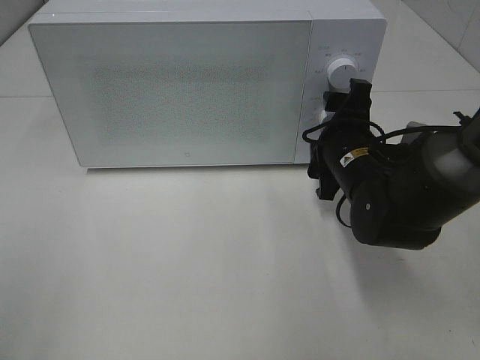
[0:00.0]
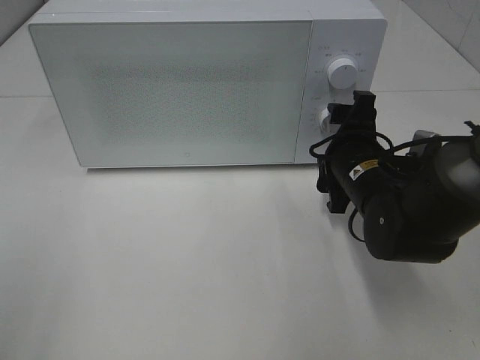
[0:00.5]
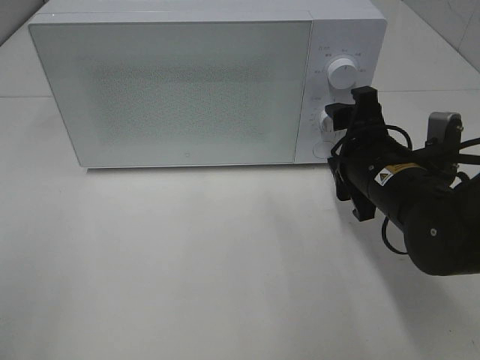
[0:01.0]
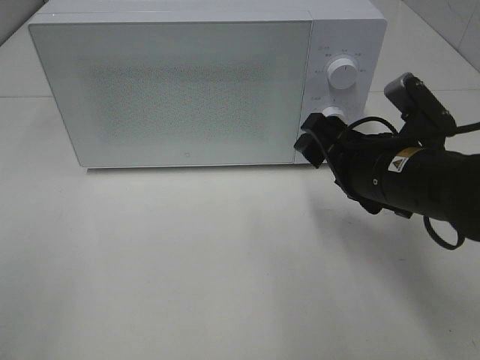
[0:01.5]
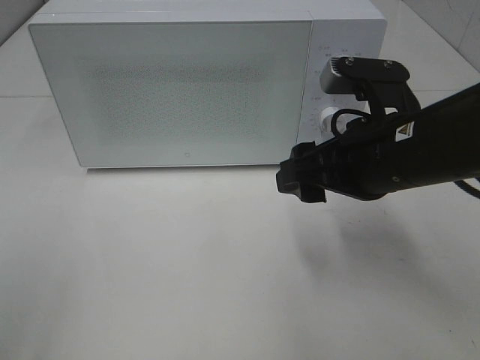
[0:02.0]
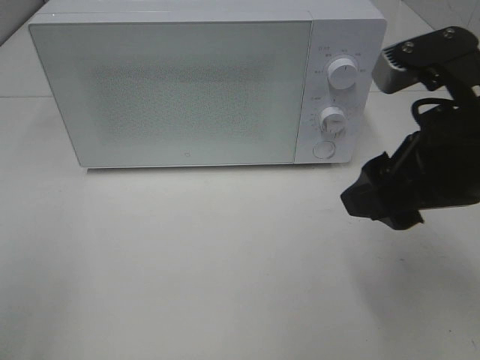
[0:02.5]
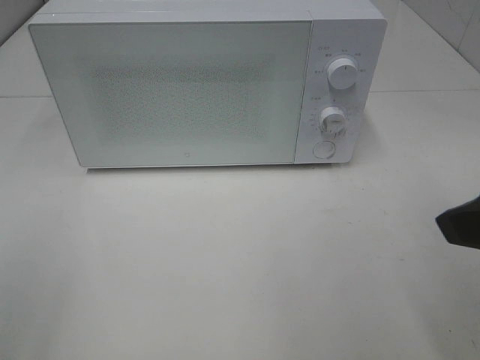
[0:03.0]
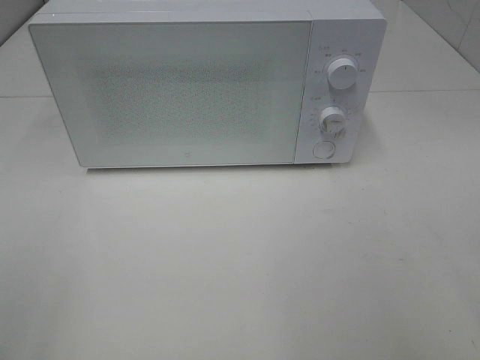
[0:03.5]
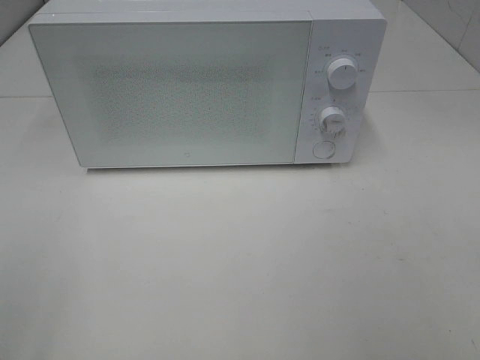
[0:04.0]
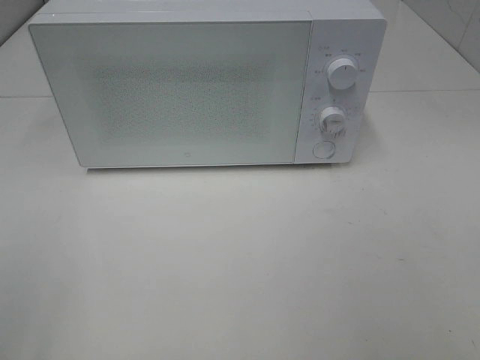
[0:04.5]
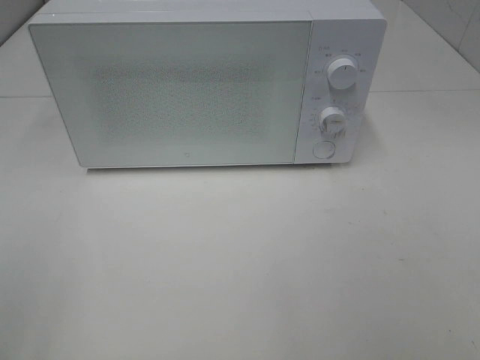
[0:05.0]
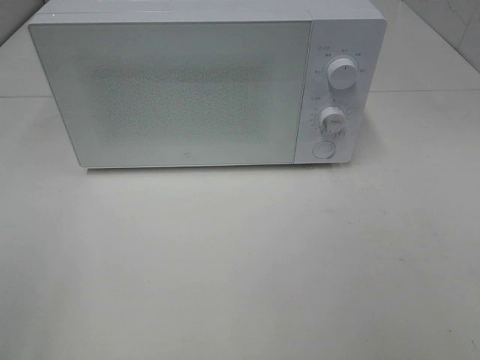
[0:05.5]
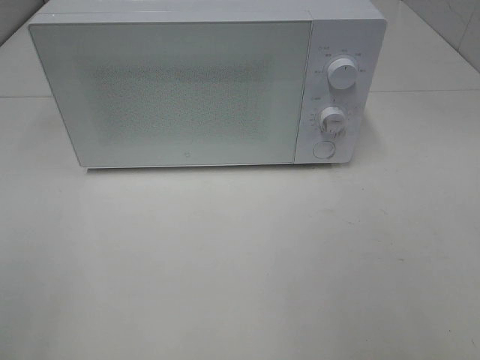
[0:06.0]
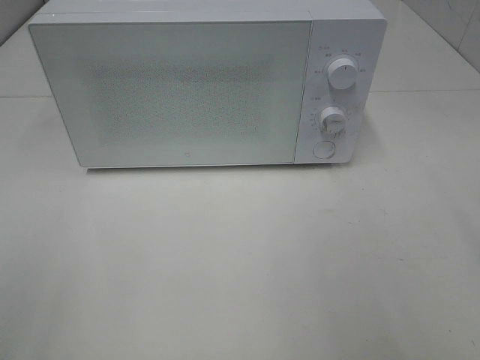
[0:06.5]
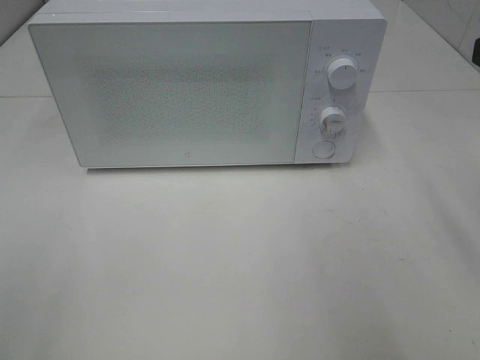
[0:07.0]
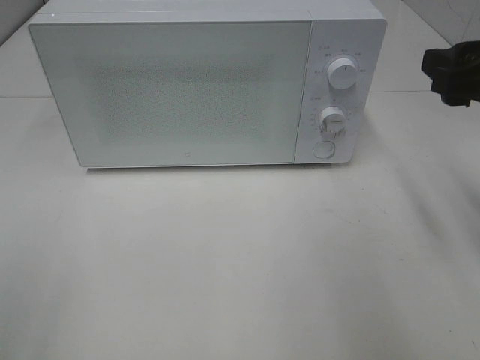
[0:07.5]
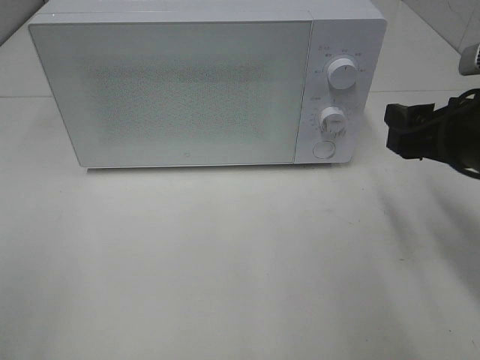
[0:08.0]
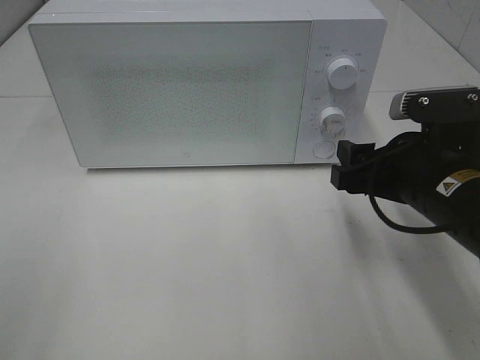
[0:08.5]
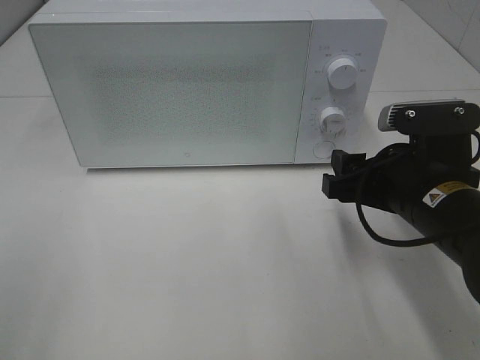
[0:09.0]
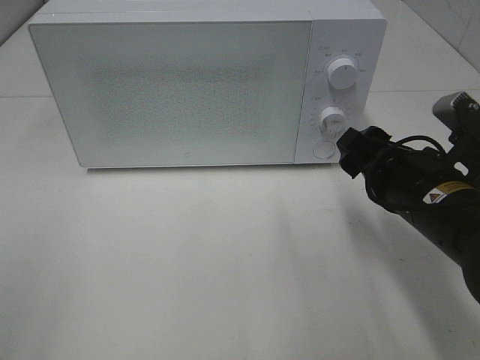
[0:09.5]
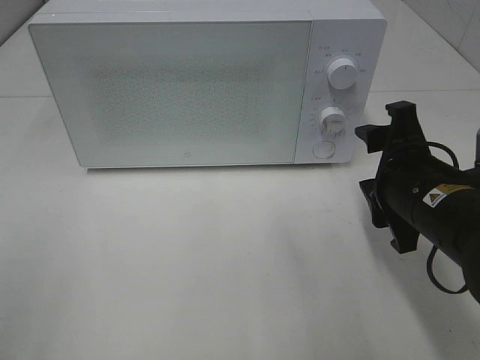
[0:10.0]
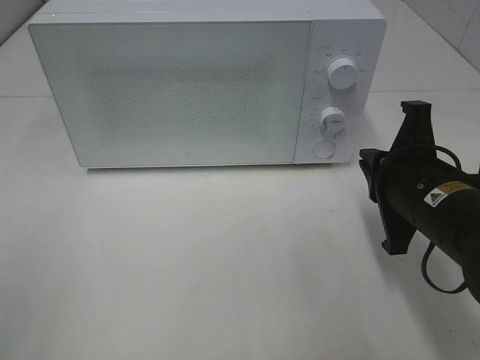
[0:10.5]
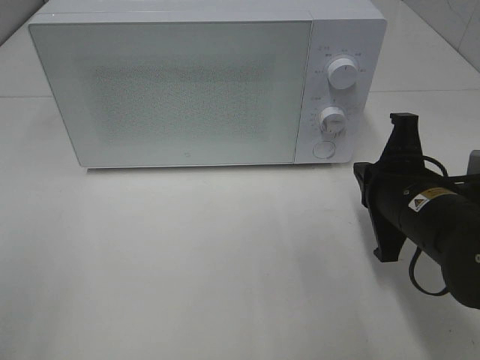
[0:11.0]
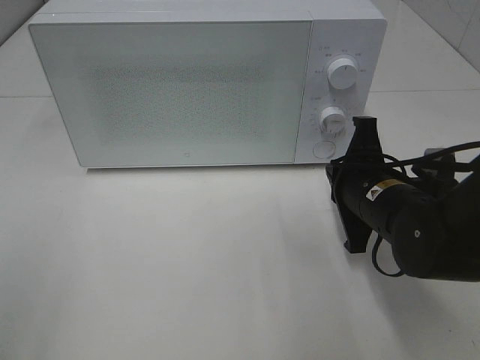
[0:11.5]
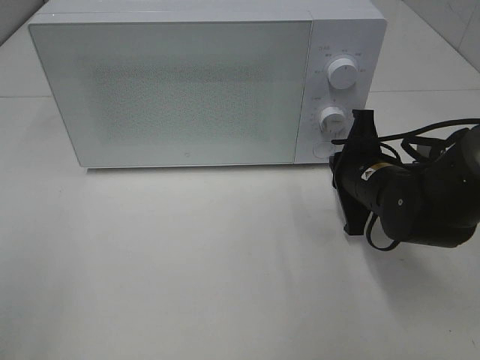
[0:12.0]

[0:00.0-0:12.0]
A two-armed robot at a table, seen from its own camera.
Task of the whole recording: Heat Sandwich.
0.0 to 2.0 s: The right gripper travels upward and backward by roughly 15 cm.
2.0 to 4.0 s: The right gripper shifts some 30 cm backward, to the right and upward.
6.0 to 8.0 s: The right gripper heads forward and downward, covering roughly 20 cm.
8.0 to 10.0 s: The right gripper goes approximately 5 cm to the left.
10.0 to 12.0 s: The right gripper travels forward and downward by roughly 10 cm, and closes.

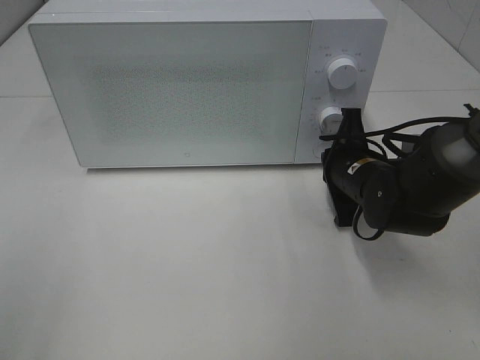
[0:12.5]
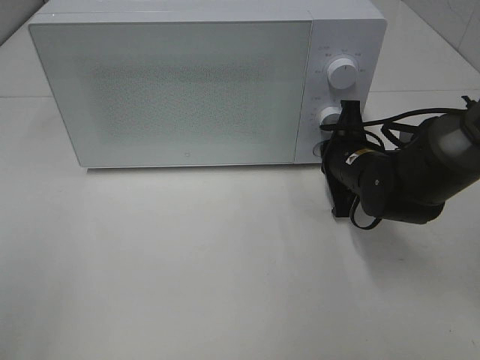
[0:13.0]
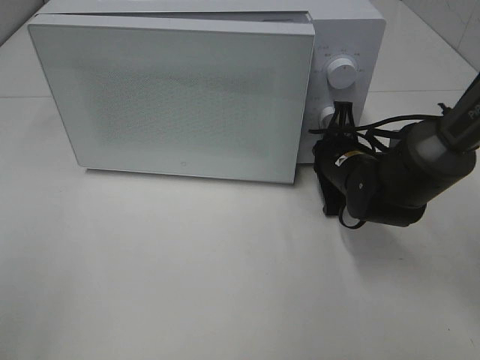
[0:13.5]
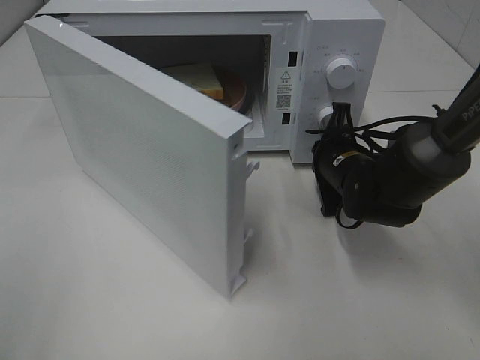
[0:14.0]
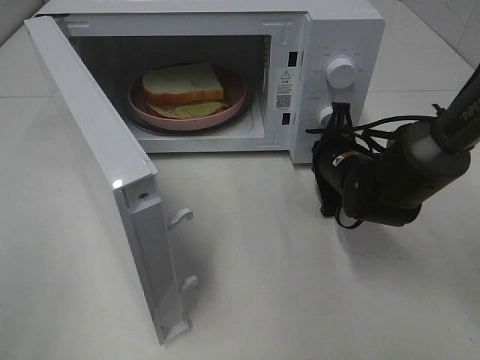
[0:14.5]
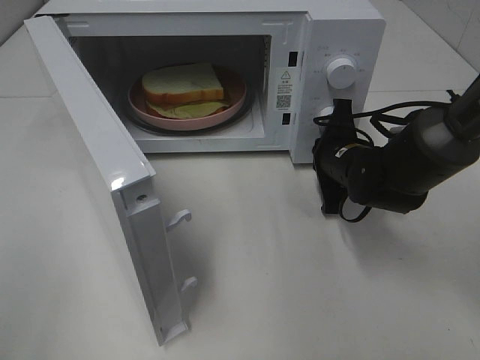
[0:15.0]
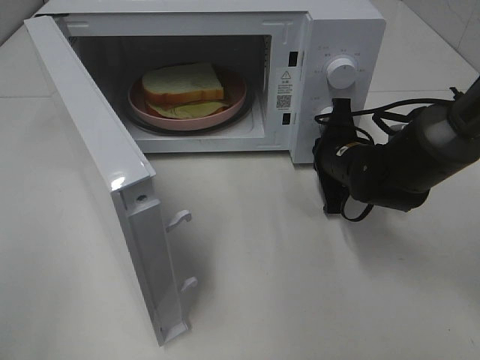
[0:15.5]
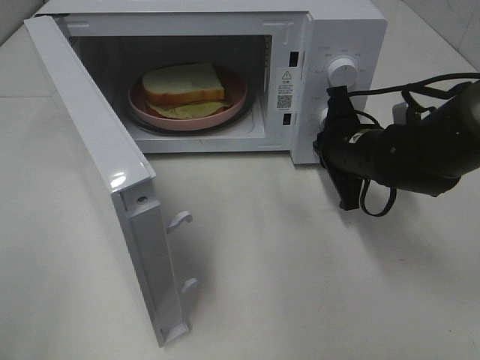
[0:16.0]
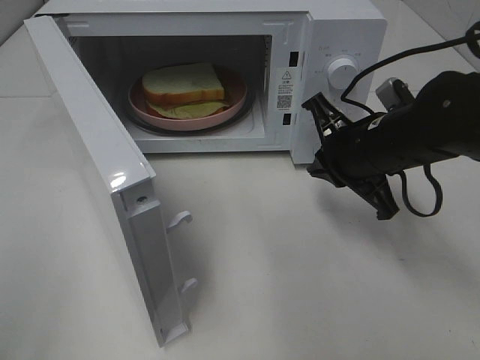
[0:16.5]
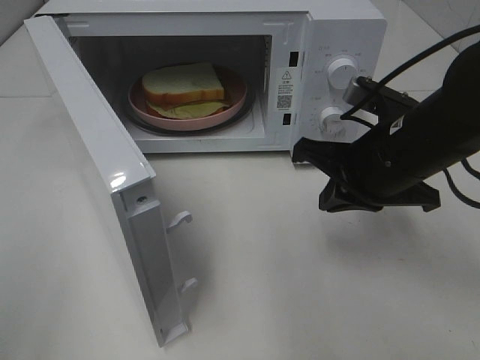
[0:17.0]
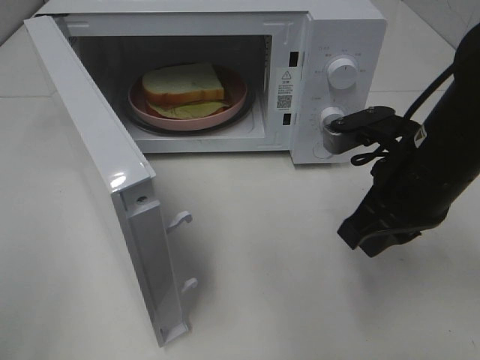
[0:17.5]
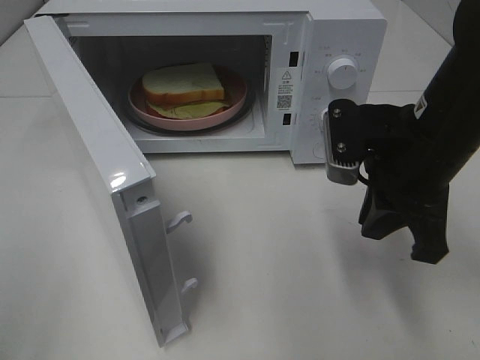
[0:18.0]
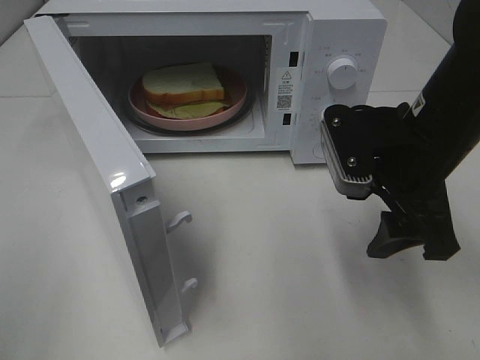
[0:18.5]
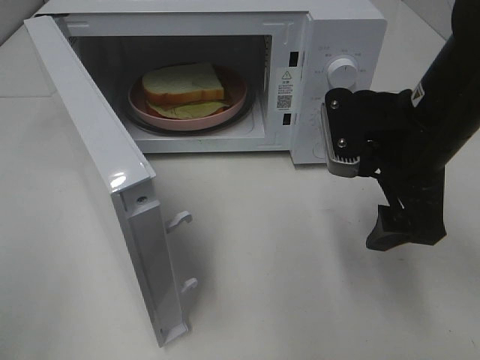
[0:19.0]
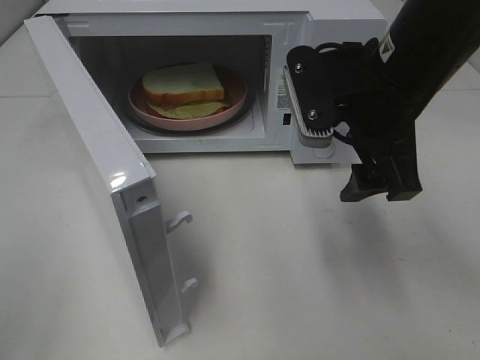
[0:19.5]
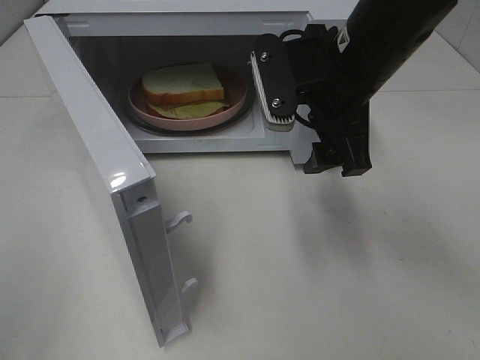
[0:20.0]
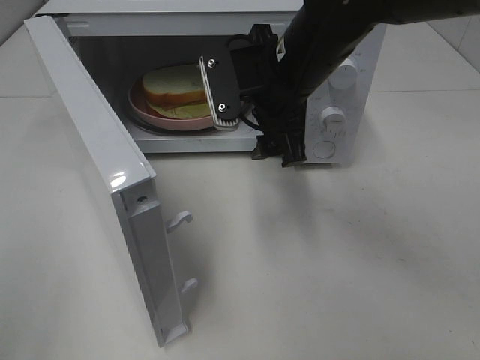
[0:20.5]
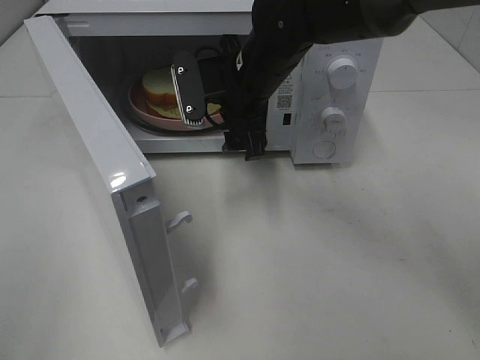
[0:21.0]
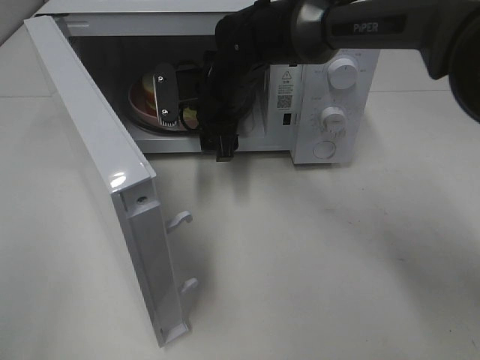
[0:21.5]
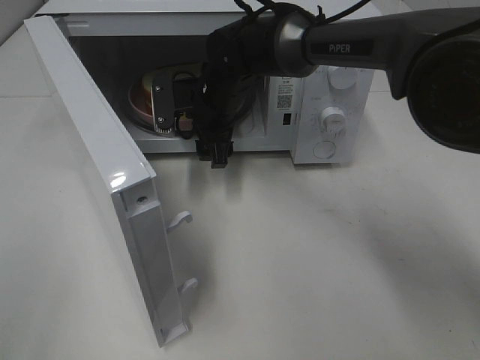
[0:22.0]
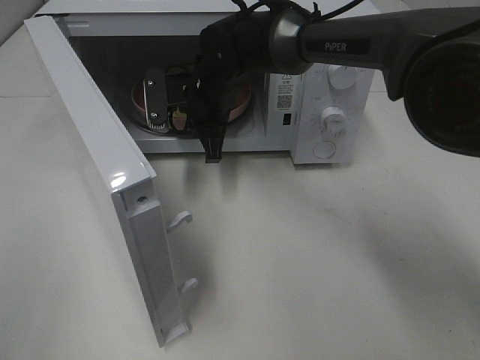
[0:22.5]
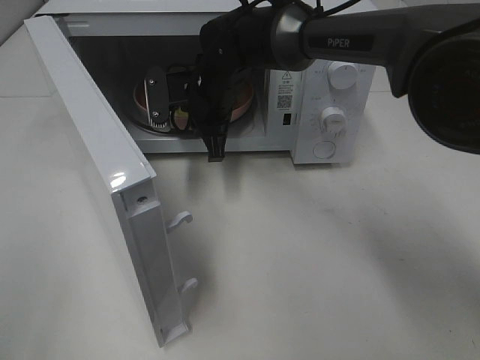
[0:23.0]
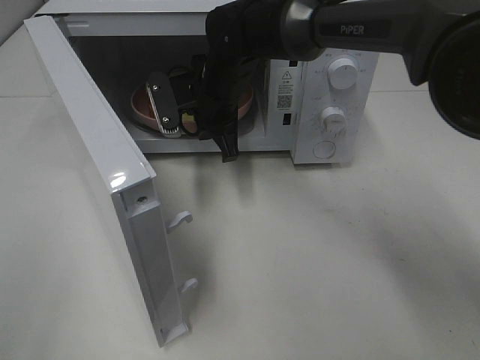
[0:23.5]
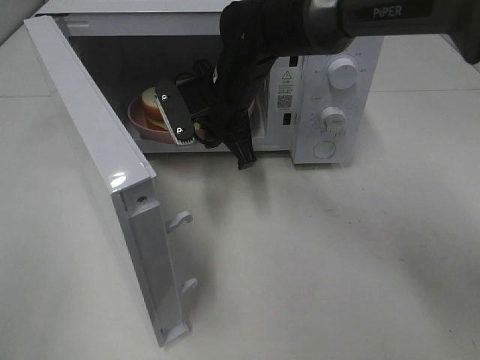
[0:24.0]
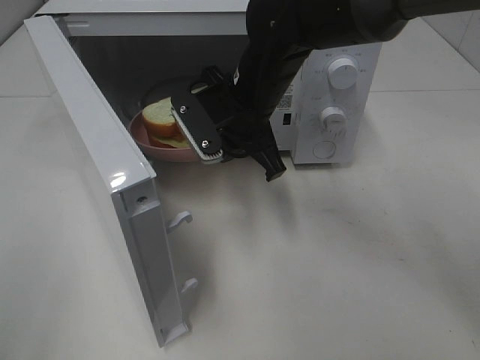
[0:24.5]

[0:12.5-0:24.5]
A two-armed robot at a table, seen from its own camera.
Task of the whole recording: Heat Sandwich.
Step, 12.5 to 16.0 s: Right hand: press the switch.
Step, 16.5 to 22.5 s: Right hand: grab the plate with the sandwich.
14.5 to 16.5 s: The right gripper heads upward and backward, covering about 10 cm.
16.5 to 18.5 s: The right gripper goes about 5 cm upward, and opens.
18.5 to 20.5 s: The right gripper travels to the left and forward by some 15 cm.
20.5 to 22.5 s: The right gripper is displaced forward, downward and to the left by approximately 15 cm, and closes up.
22.5 to 24.5 s: The right gripper goes approximately 10 cm backward.

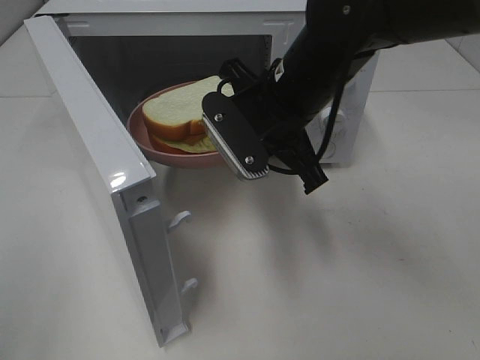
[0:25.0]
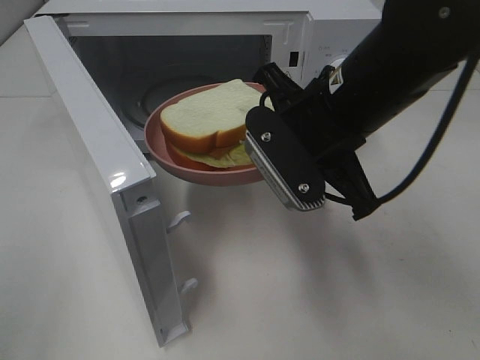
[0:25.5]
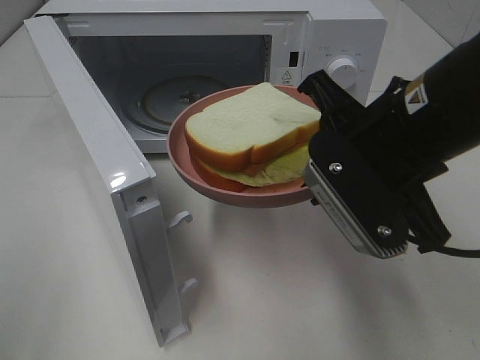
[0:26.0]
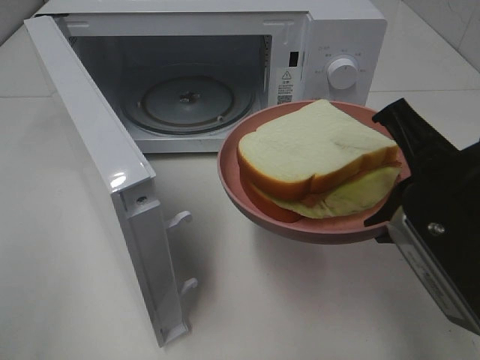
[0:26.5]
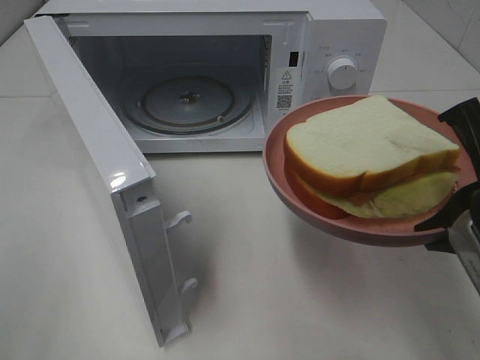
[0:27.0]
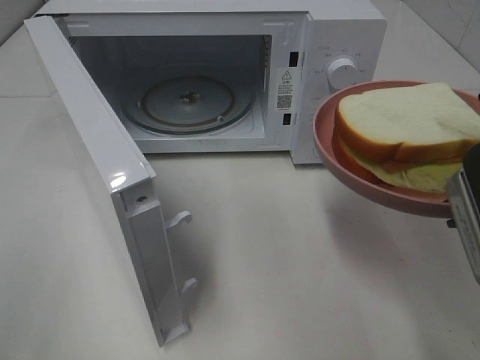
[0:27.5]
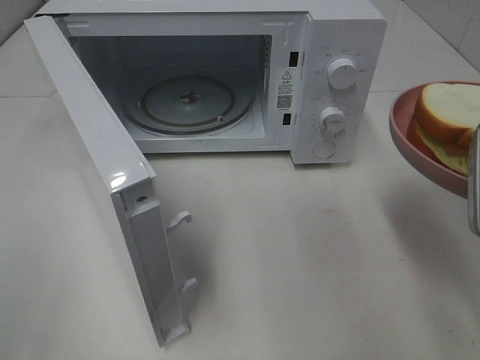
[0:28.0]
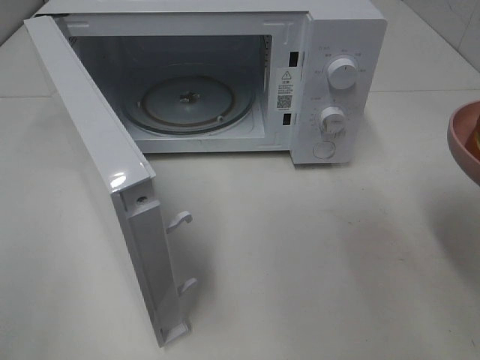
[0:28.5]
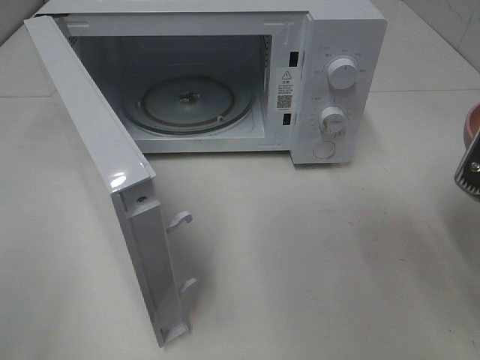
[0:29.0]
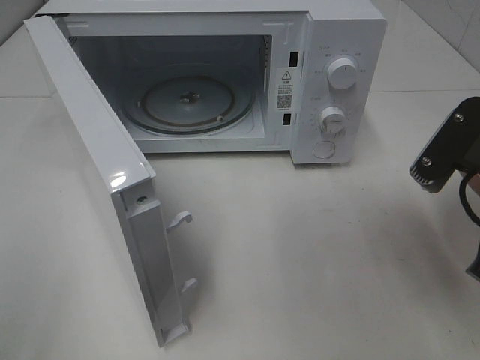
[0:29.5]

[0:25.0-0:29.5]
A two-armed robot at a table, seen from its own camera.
Task of the whole recording: Heat Sandwich.
25.0 to 27.0 s: The right gripper is displaced backward and to the right by some 20 cm.
27.0 to 29.5 s: The right gripper ends up roughly 5 cm from where it was.
